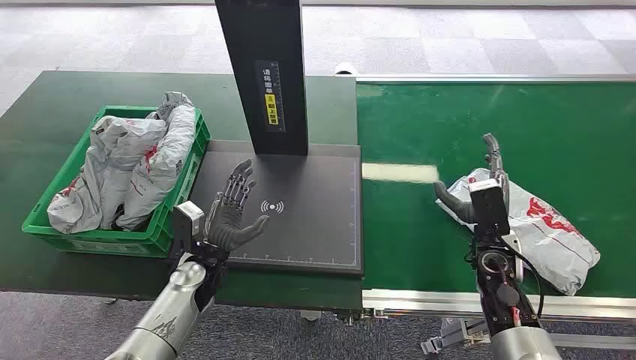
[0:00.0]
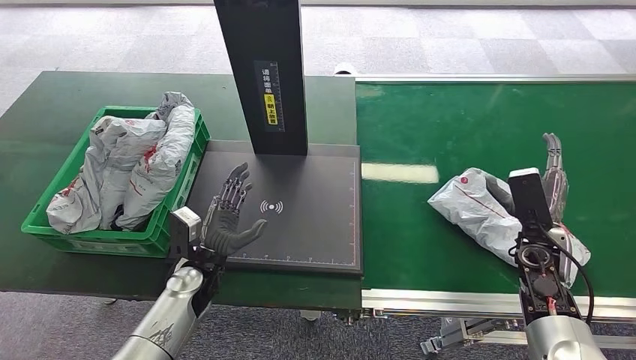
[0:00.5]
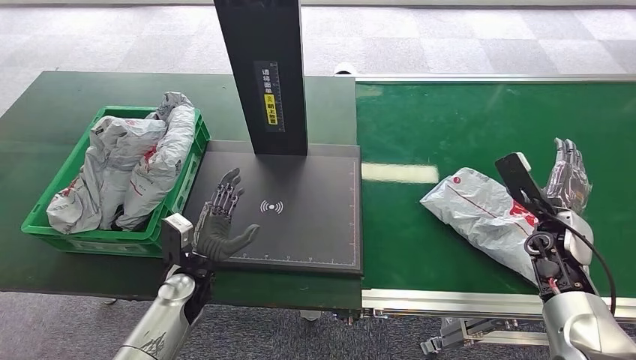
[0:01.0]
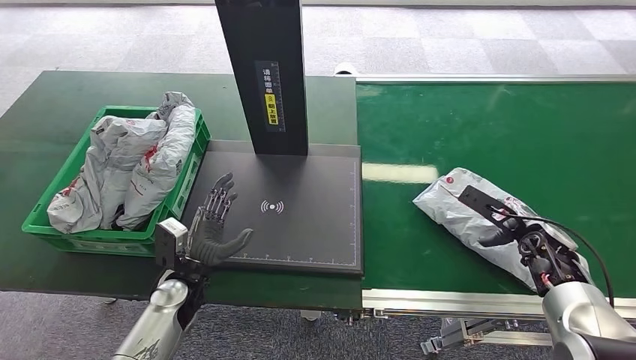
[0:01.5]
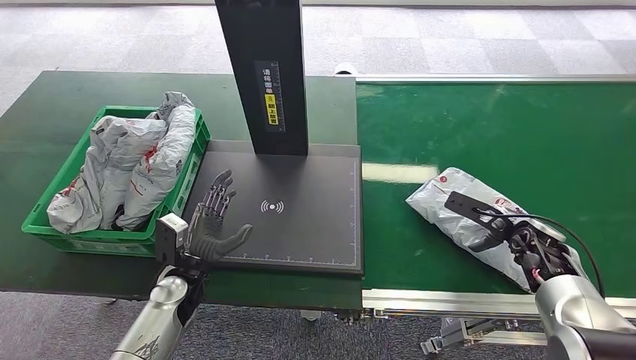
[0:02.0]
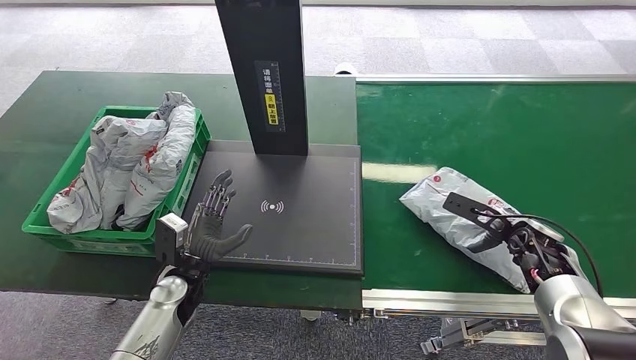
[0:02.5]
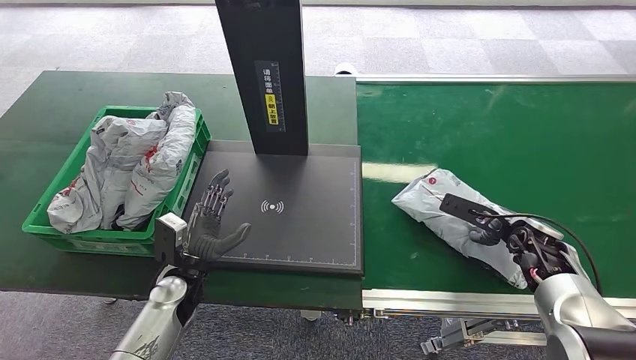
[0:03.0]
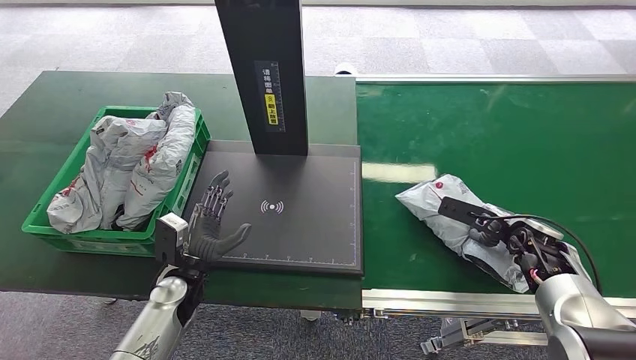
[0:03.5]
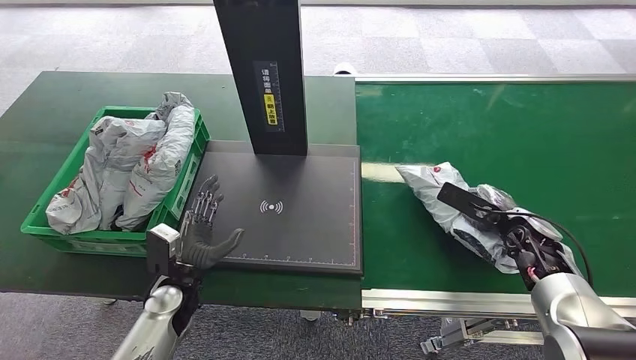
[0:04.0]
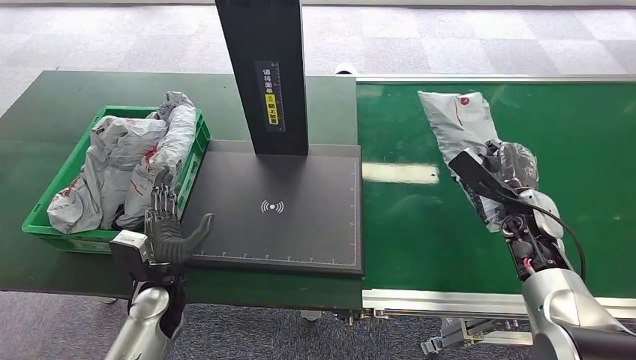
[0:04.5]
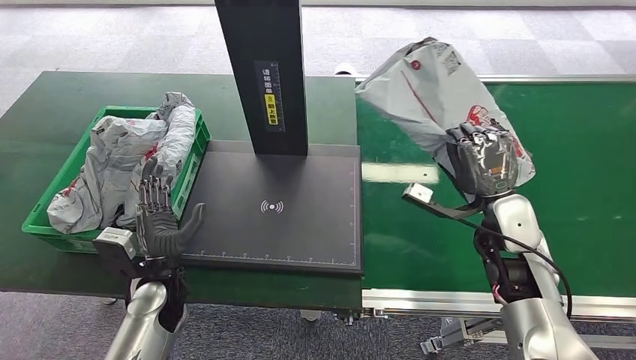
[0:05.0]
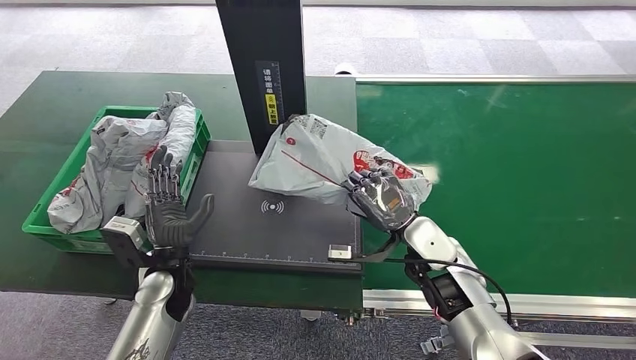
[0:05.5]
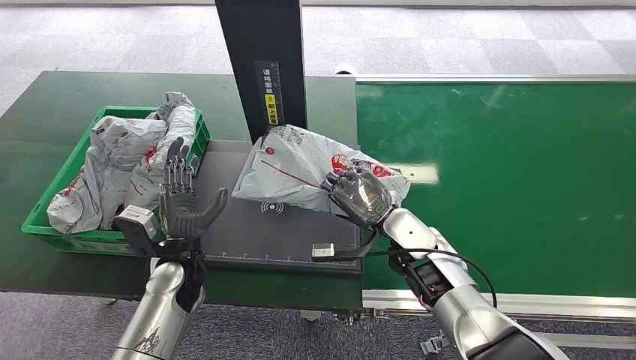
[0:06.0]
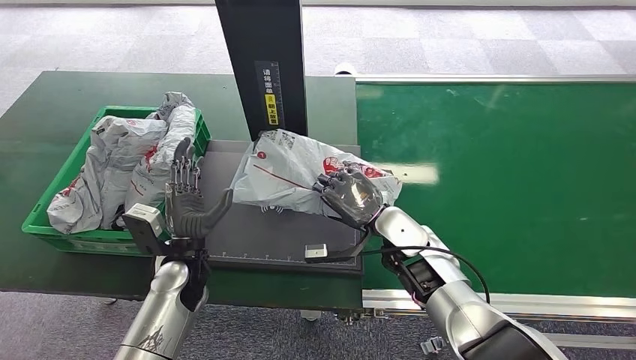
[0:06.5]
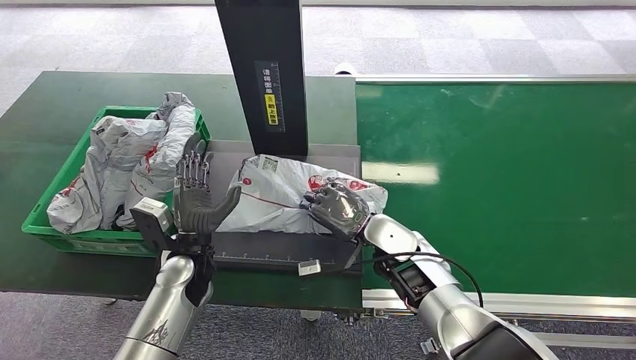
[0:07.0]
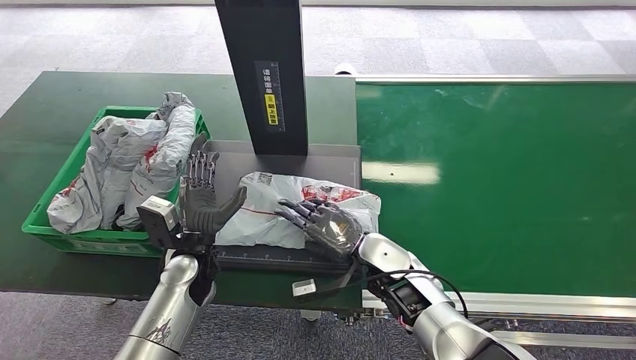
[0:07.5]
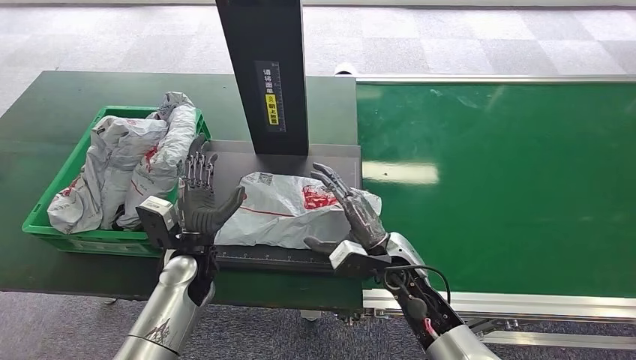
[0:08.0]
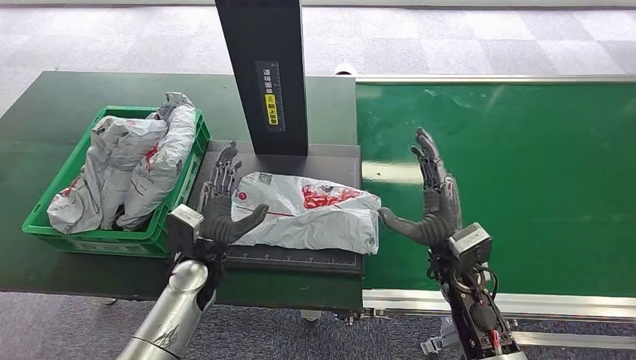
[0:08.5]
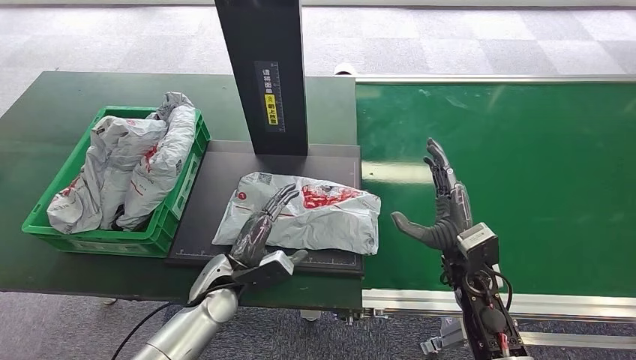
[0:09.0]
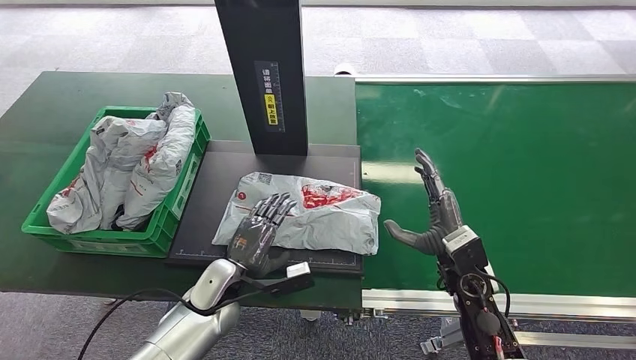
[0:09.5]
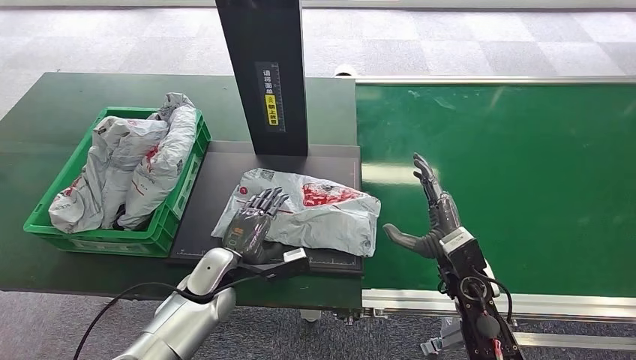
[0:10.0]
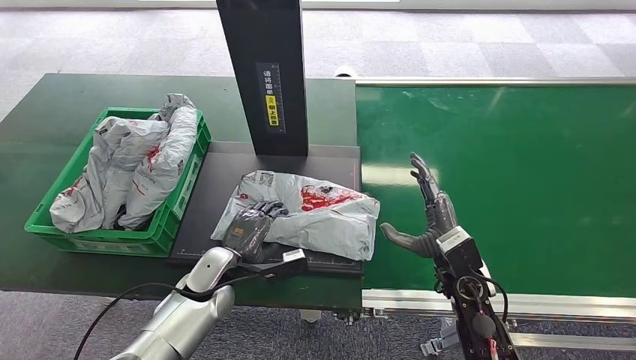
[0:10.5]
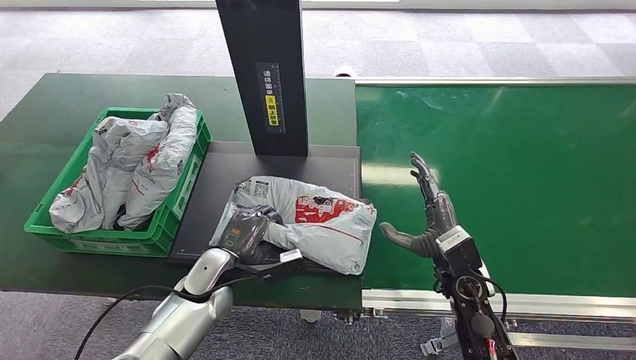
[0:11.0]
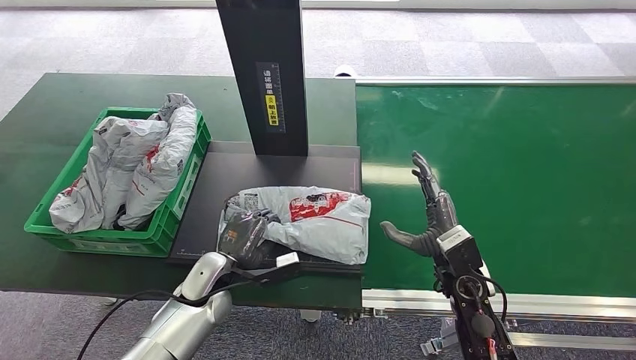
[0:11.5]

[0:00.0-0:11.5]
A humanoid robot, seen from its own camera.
Step, 0:00.0 to 0:04.0: Pick up the package from the conveyor belt.
Step, 0:04.5 to 0:08.0: Place the package onto the inbound machine.
0:02.0 to 0:04.0: The hands make only small movements.
0:06.0 to 0:07.5: The right hand changes place by some 5 cm.
0:07.5 to 0:09.5: The right hand shifts some 10 cm to the right; the left hand shifts some 5 cm downward.
0:09.5 to 0:11.5: The hands move only a little.

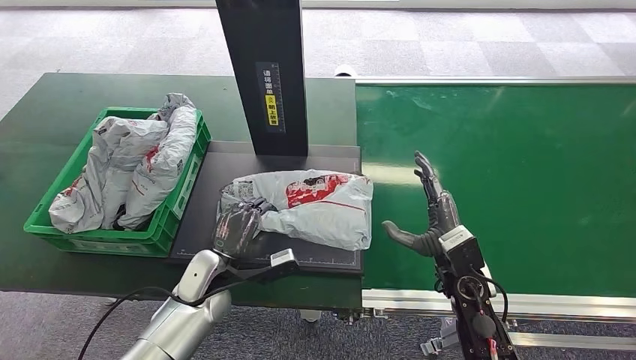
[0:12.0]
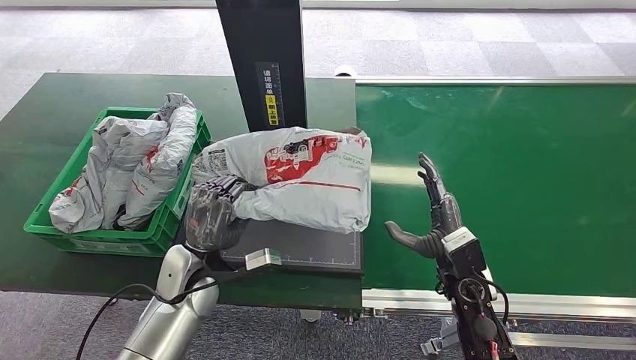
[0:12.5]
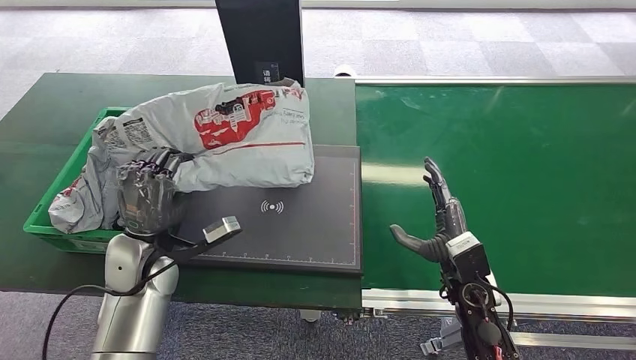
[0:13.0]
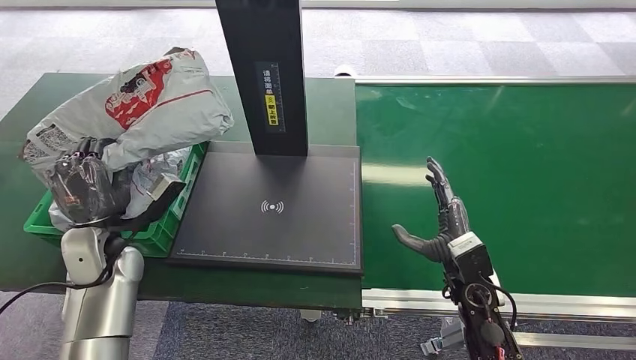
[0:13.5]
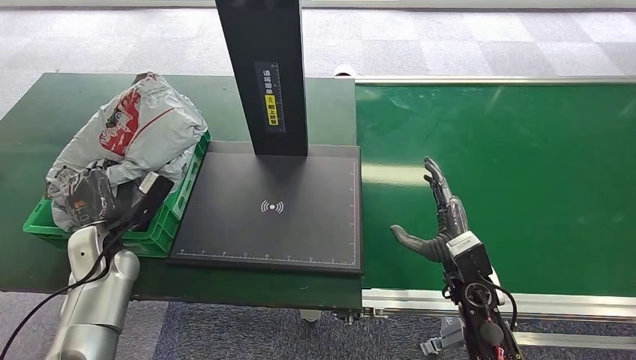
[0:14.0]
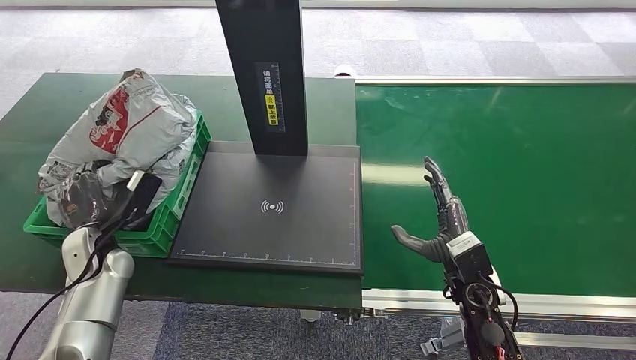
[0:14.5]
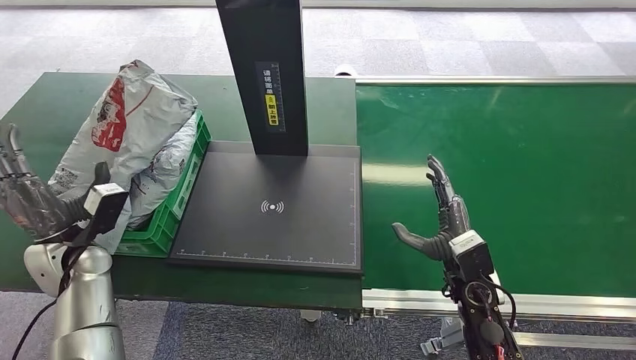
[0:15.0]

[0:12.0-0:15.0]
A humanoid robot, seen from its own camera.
Step, 0:13.0 to 0:15.0: Place the package into the parcel locker.
0:13.5 to 0:15.0: The left hand goes roughly 5 cm to the left.

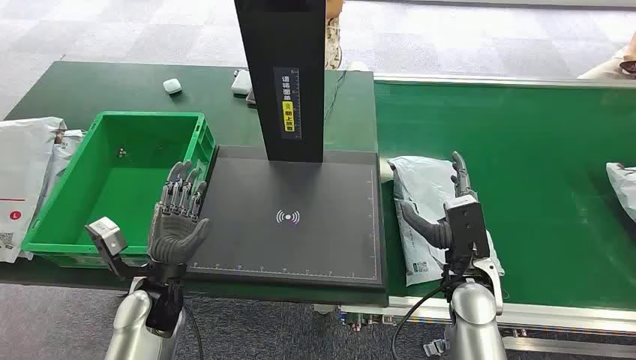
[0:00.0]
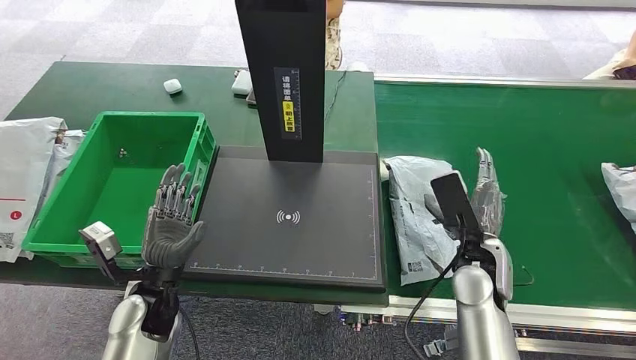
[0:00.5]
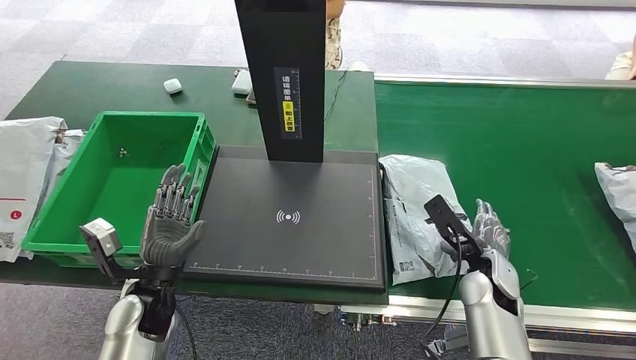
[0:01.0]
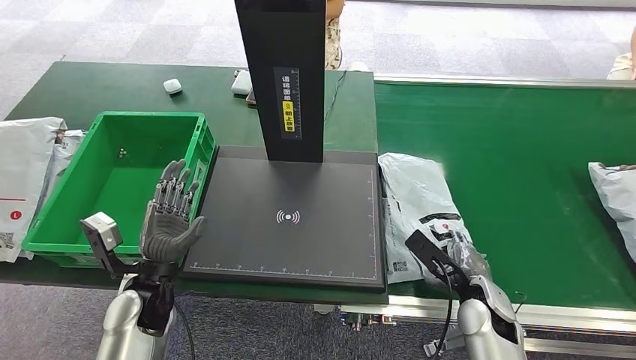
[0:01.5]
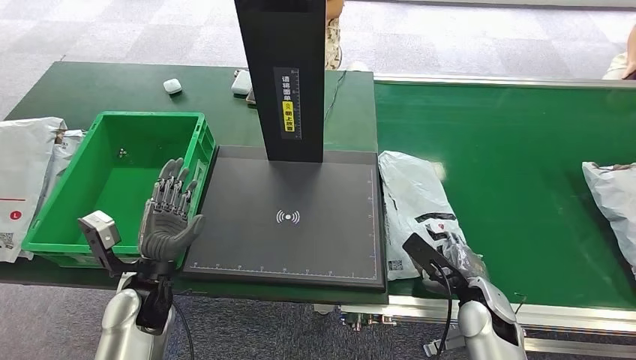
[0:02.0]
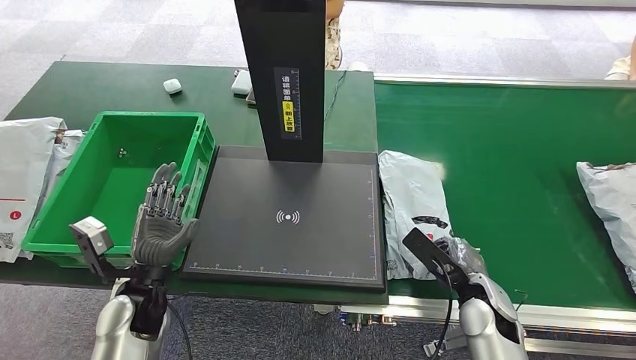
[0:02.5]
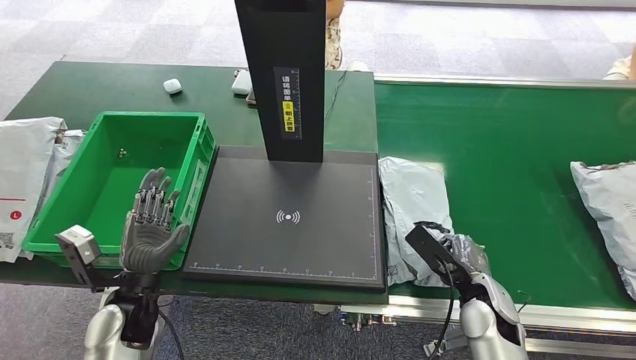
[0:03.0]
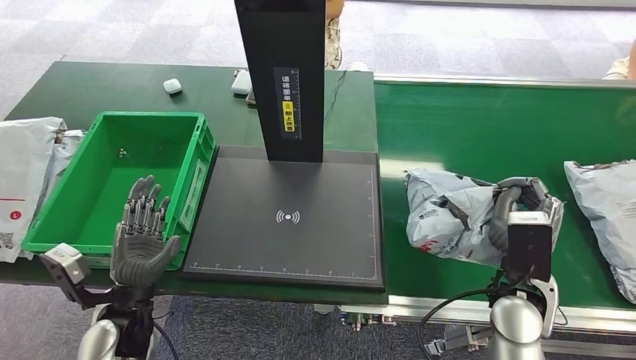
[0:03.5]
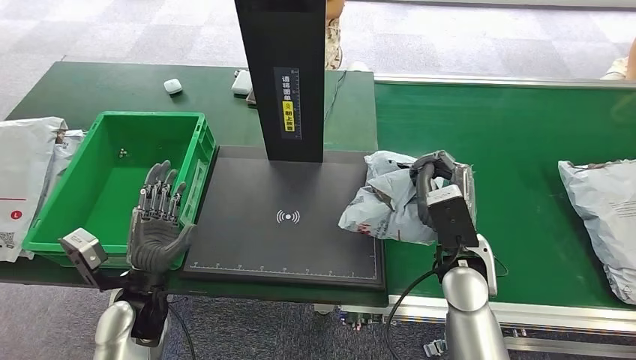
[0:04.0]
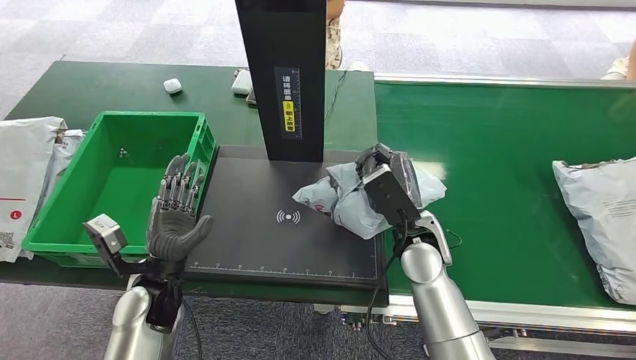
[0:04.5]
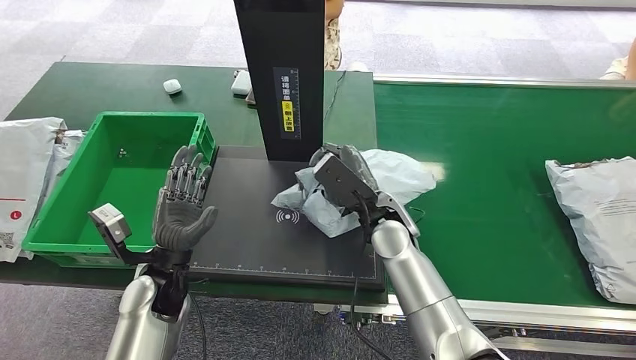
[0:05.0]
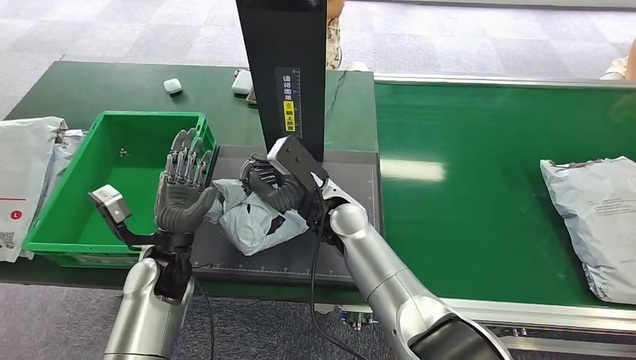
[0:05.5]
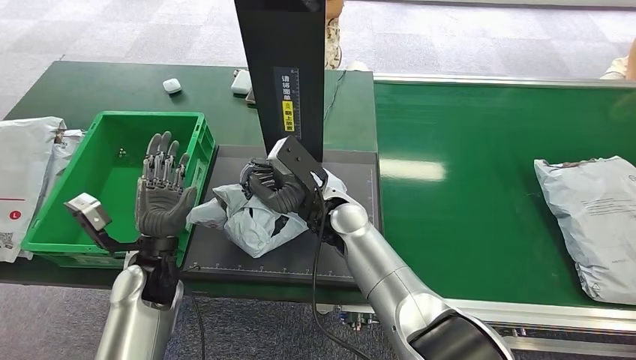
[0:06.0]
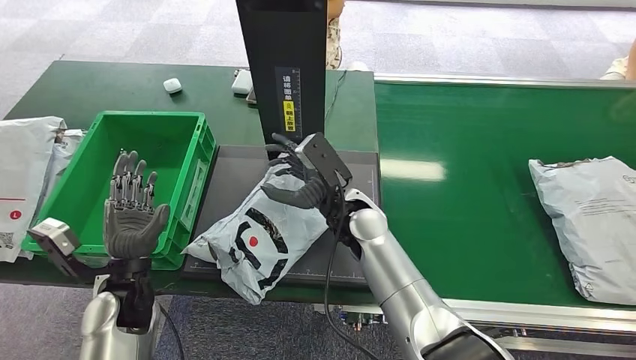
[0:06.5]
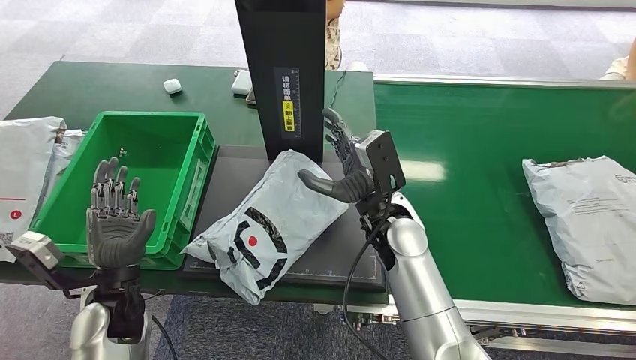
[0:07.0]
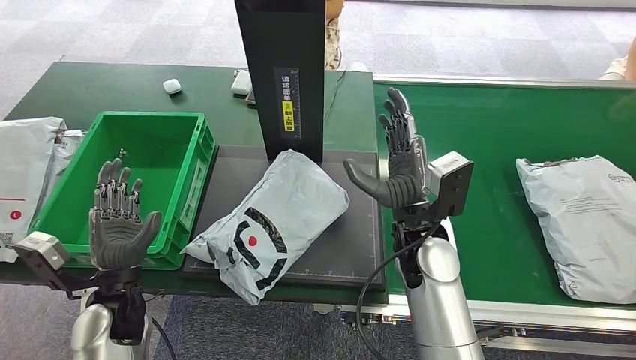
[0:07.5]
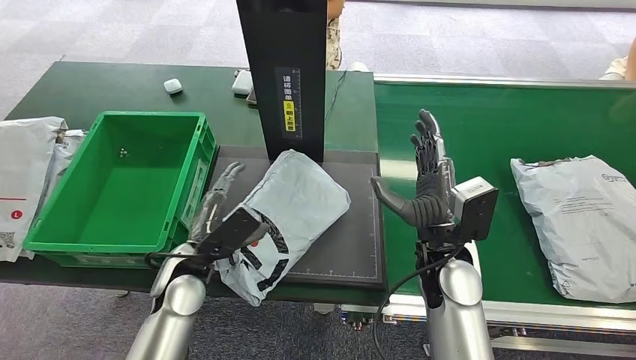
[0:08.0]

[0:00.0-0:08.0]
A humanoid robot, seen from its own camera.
Step, 0:00.0 to 0:03.5: Pick up the package from the conveyor belt.
Step, 0:04.0 to 0:07.0: Place the package onto the inbound machine.
0:02.0 to 0:04.0: The right hand travels upward and to the left by some 15 cm.
